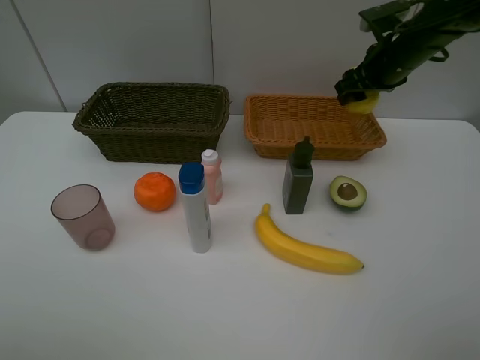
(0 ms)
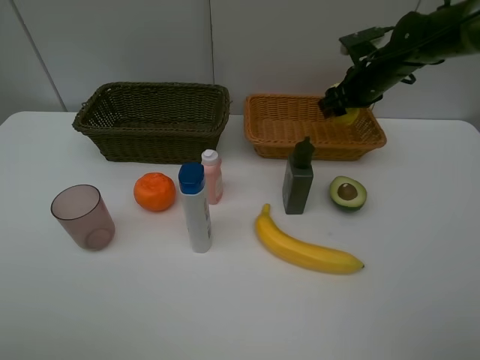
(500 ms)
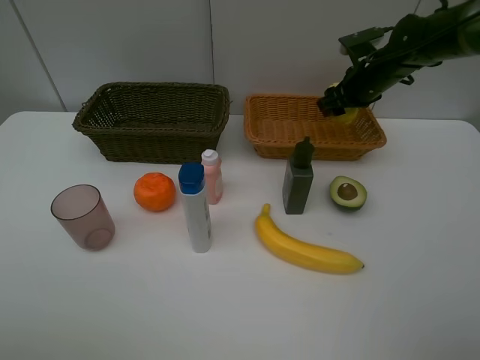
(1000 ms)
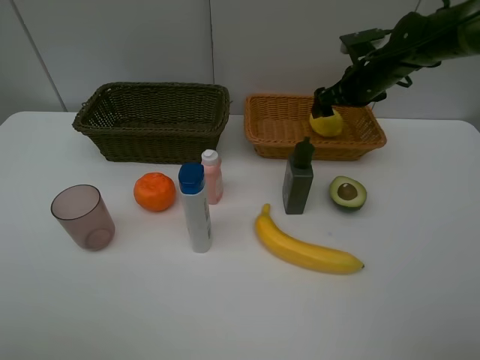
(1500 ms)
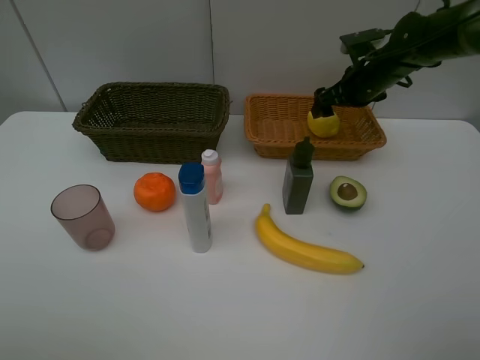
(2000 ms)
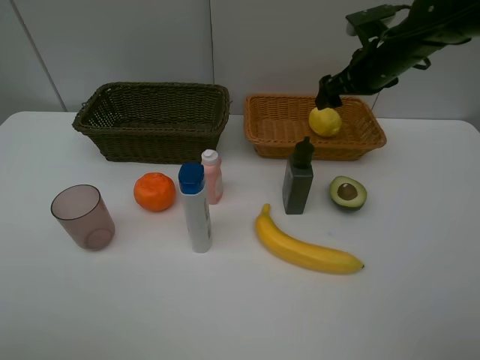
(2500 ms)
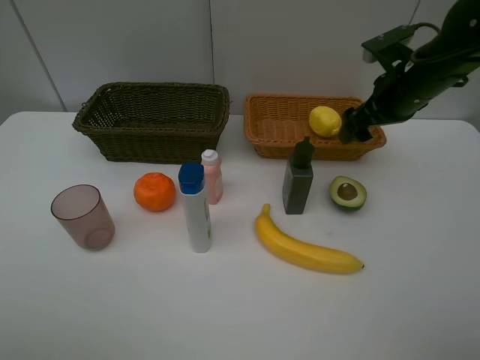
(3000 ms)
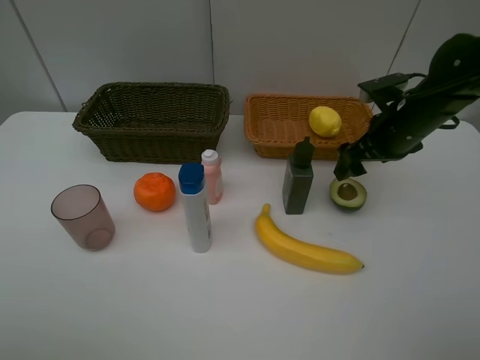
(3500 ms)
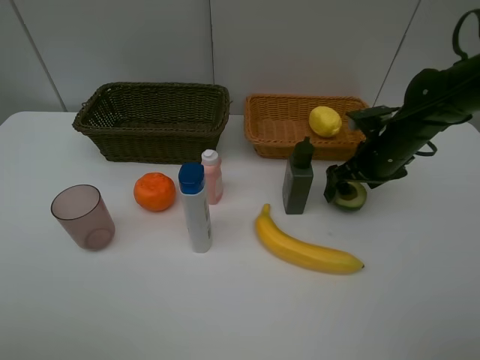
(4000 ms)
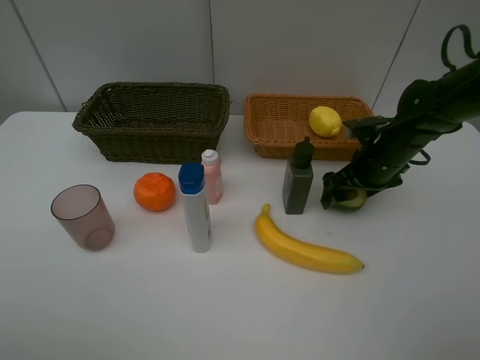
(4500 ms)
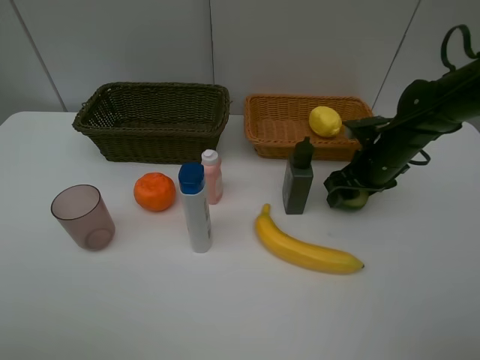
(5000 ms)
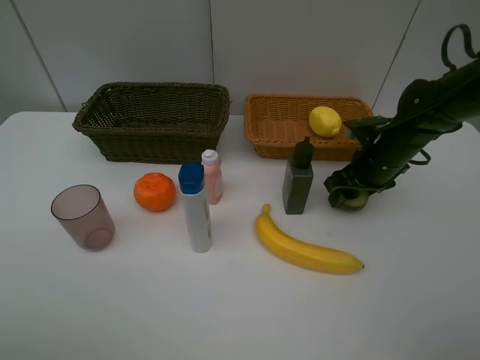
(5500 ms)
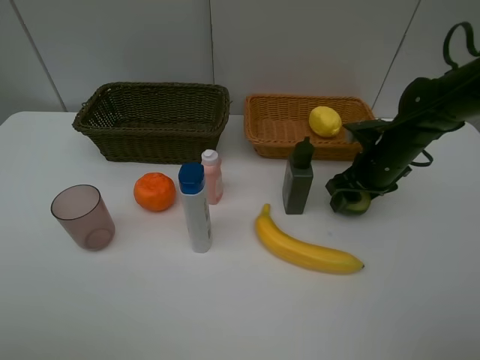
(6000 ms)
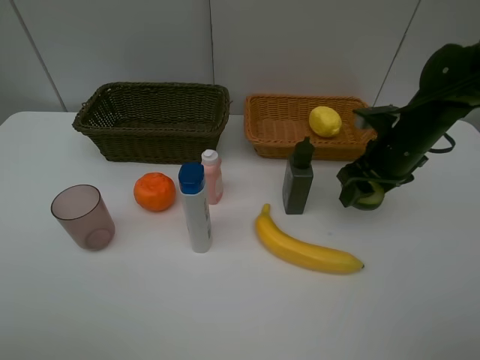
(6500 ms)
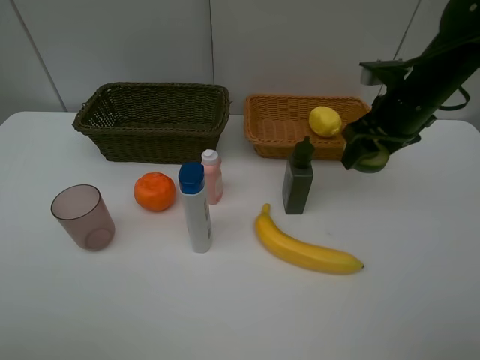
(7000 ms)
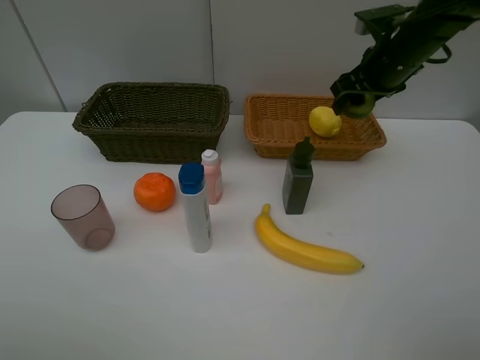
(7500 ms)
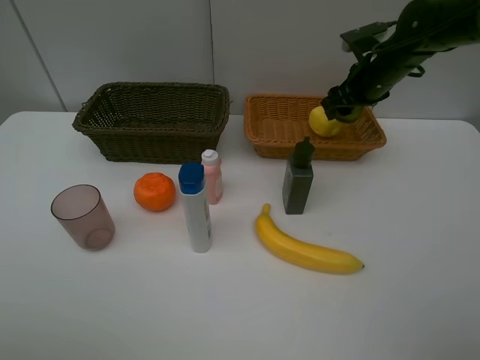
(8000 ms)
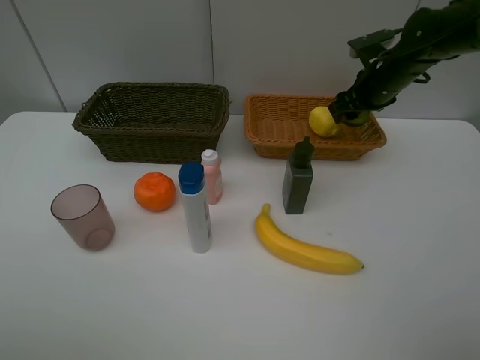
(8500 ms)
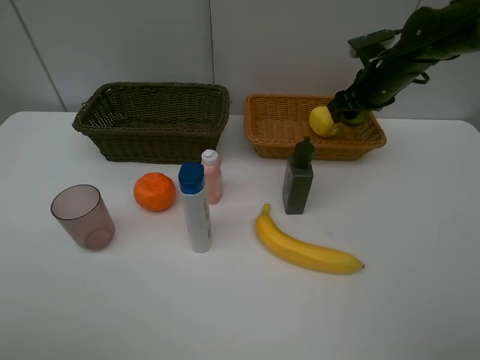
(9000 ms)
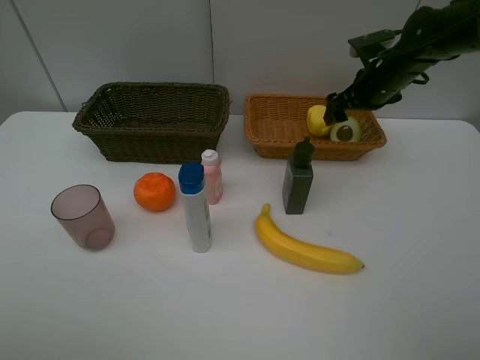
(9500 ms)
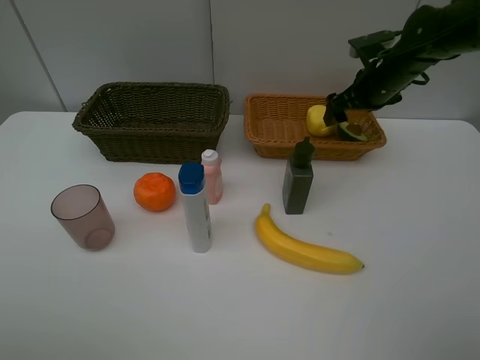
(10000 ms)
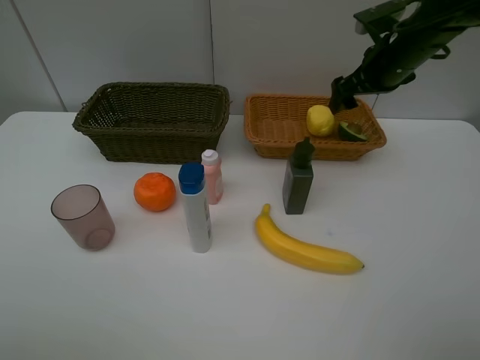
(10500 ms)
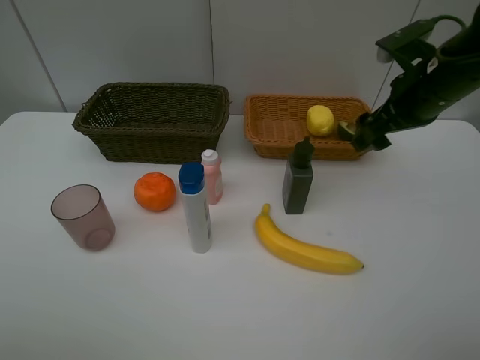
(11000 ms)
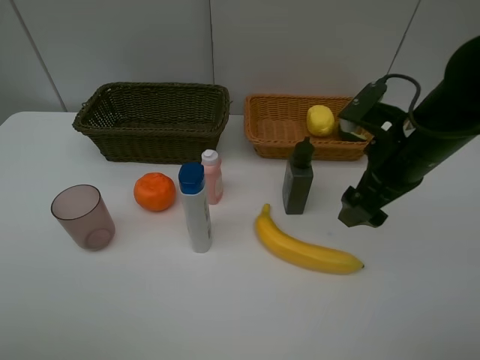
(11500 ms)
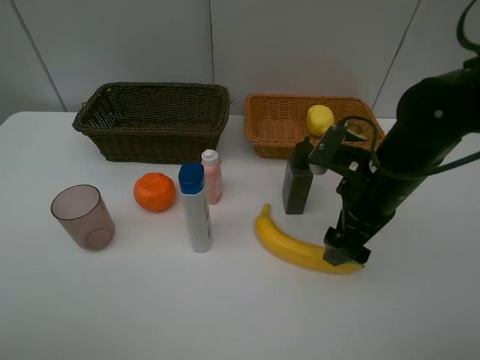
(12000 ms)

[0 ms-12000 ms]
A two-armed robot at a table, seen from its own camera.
Task of the whole recording: Place multiple objects separately in different baskets.
Step, 0 ms to 2000 ms: Place the lemon in the light basket with right gripper.
Step, 2500 ms to 6000 ms: Pick up the avocado with right gripper.
Step, 6500 ms to 9500 ms: Place the avocado in the light basket with right gripper.
0 ms to 2000 ms: The right gripper moves about 5 cm, and opens.
2000 ms to 4000 ms: The right gripper goes about 15 cm backward and downward.
4000 ms to 6000 ms: The right gripper closes up.
6000 ms to 8000 ms: The right gripper travels forward and upward by some 15 cm.
8000 ms to 10000 ms: The right gripper opens up.
10000 ms to 12000 ms: The right gripper shifts about 20 cm backward.

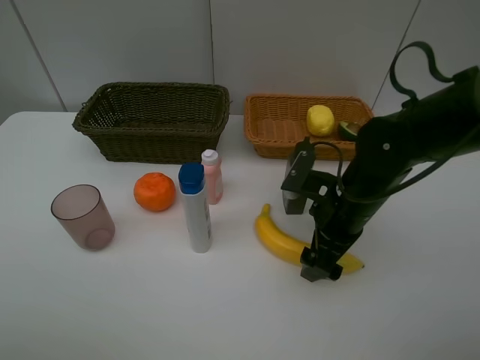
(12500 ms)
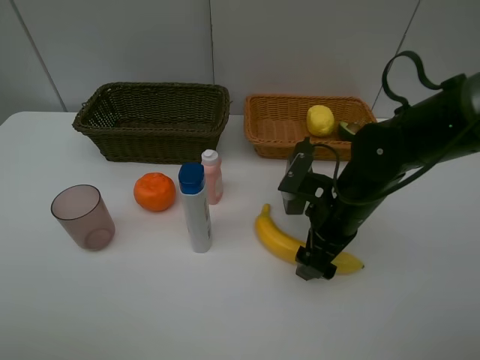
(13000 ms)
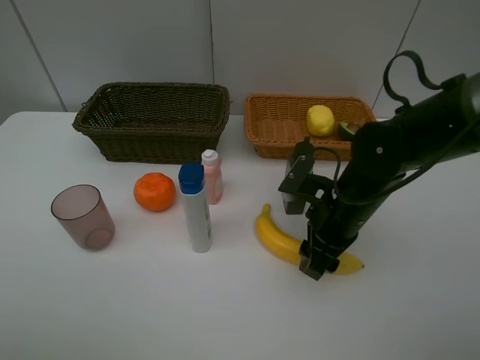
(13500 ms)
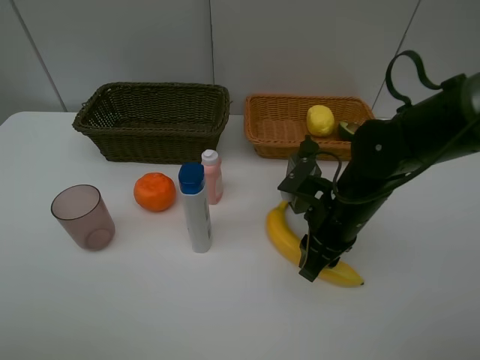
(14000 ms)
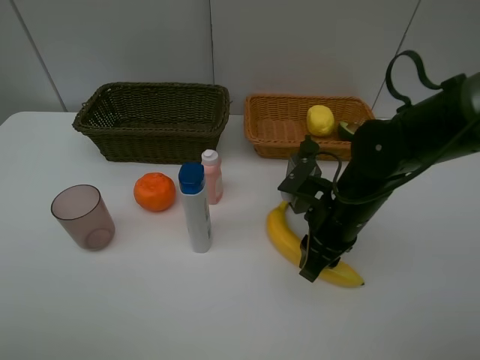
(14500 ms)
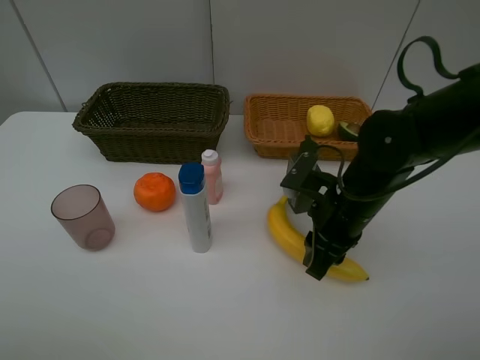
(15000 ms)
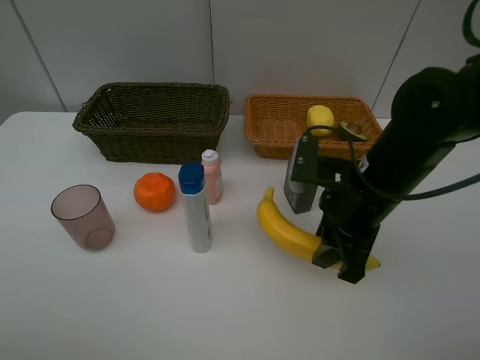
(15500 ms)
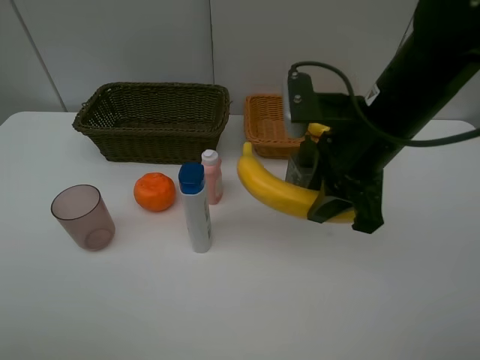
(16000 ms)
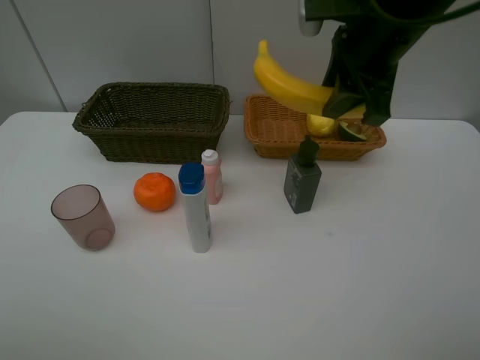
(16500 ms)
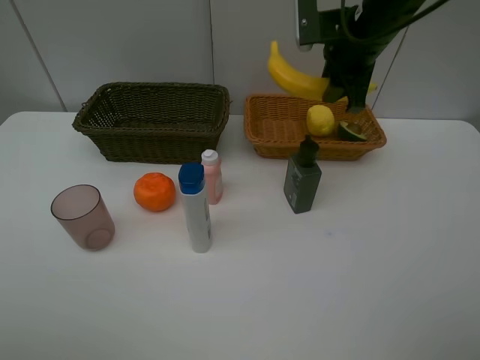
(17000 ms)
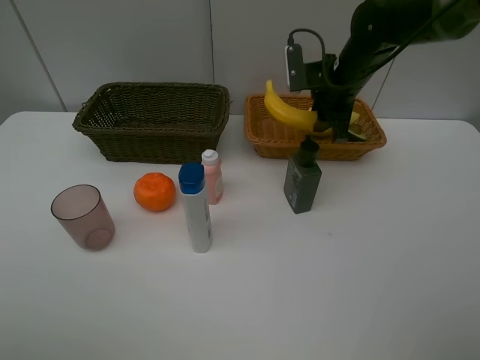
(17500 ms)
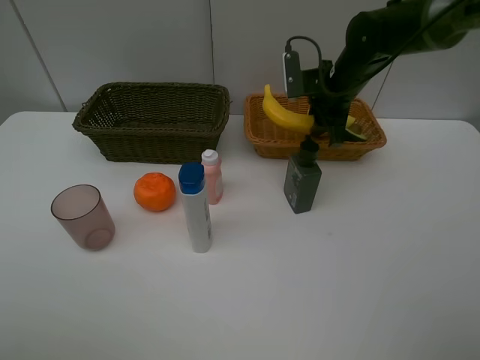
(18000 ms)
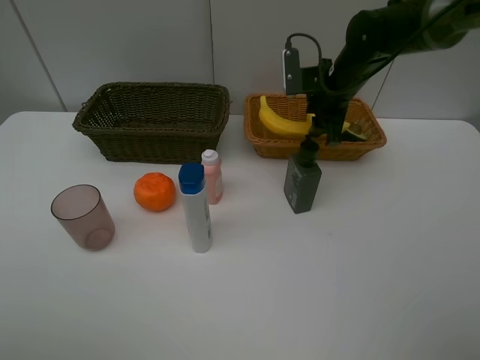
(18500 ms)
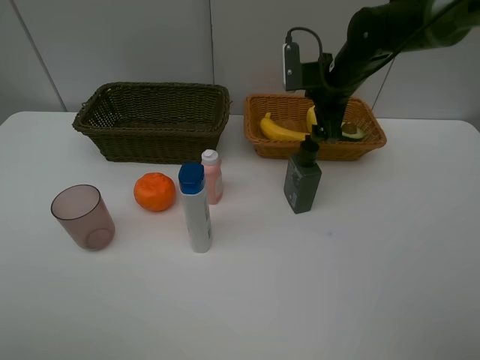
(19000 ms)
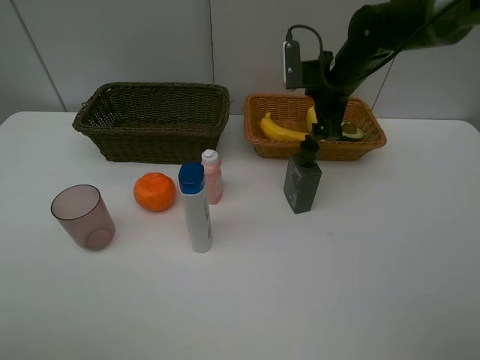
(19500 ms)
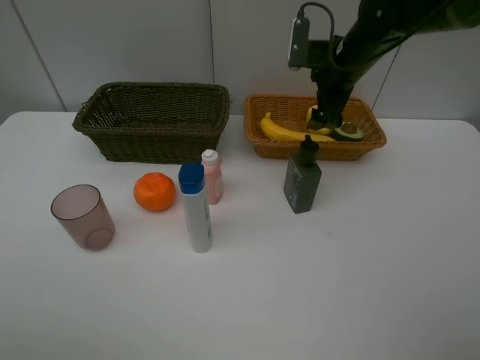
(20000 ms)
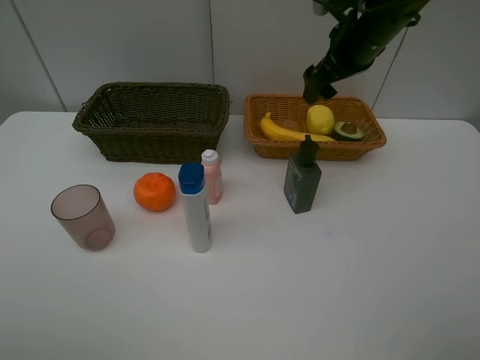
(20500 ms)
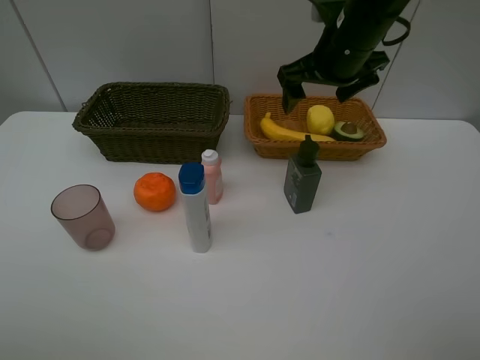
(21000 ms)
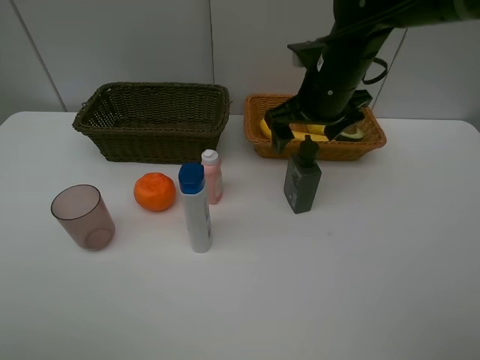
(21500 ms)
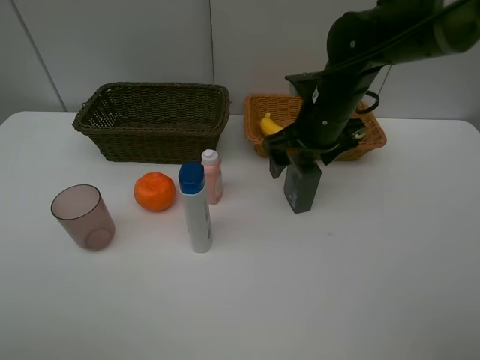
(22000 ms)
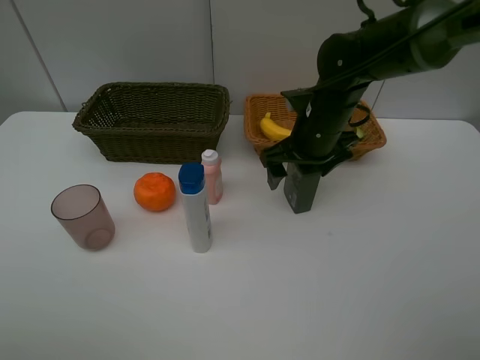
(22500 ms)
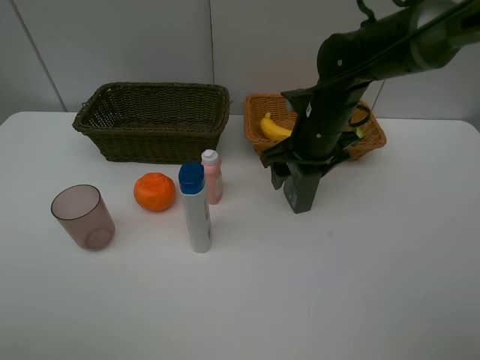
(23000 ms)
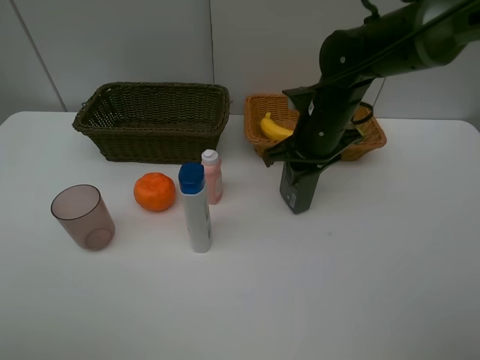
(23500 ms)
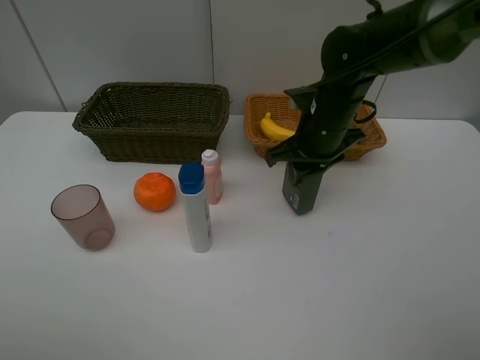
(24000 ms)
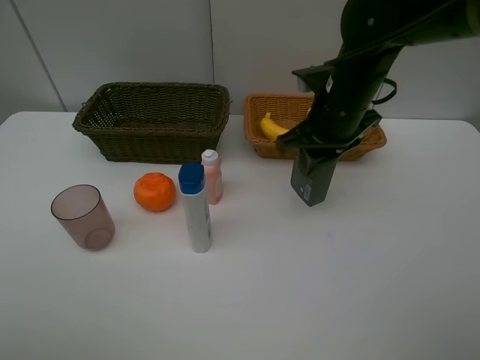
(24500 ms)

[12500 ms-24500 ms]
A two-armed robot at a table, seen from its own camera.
Task of the whole recording: Place multiple objects separately in different baskets.
Step, 12500 ms to 15000 ms: Pick up banana with right gripper.
Step, 15500 ms to 18500 ms: Place the banana in the light basket with right gripper.
Step, 19000 ms to 24000 ms: Pick up the hard facial cleanser with right gripper.
12500 ms to 14500 ms: The right gripper closes.
14500 ms to 16500 ms: The right gripper heads upward, covering about 20 cm.
16500 ms to 18500 ms: The right gripper is displaced downward and forward by roughly 20 cm, and opens its fingers.
18500 ms to 20500 ms: The right gripper travels upward by approximately 10 cm, and opens its fingers.
20500 ms to 22500 ms: The right gripper travels downward, backward and to the left by roughly 15 cm.
22500 ms to 24500 ms: The right gripper heads upward, covering roughly 5 cm, and closes.

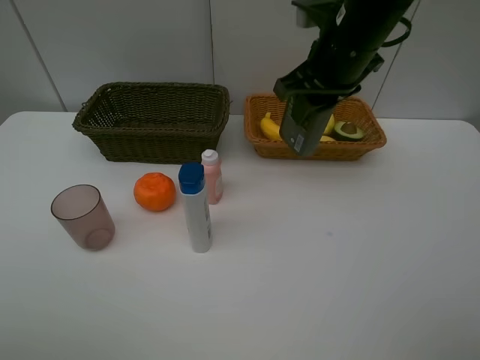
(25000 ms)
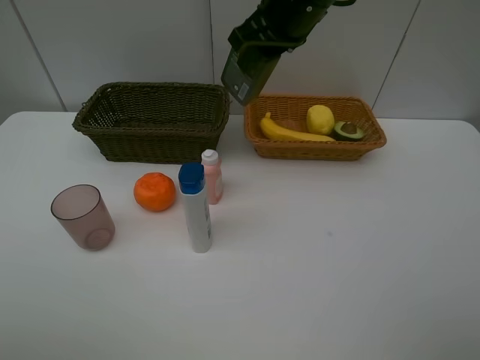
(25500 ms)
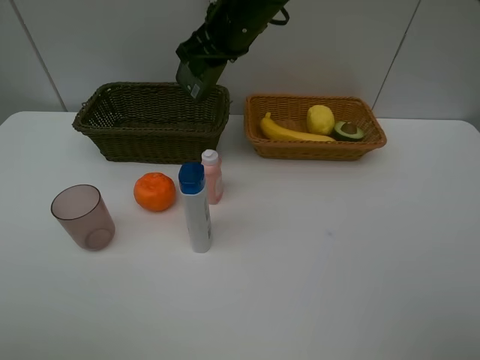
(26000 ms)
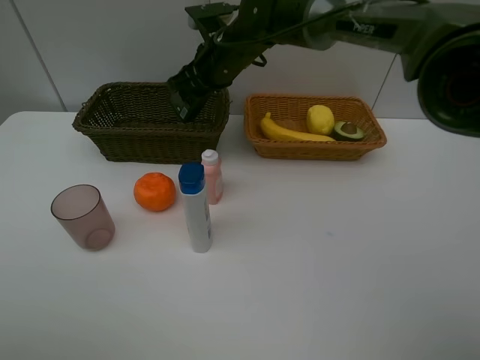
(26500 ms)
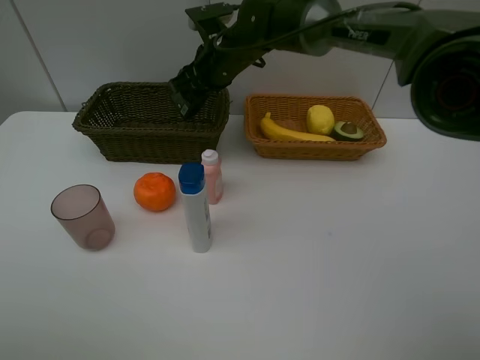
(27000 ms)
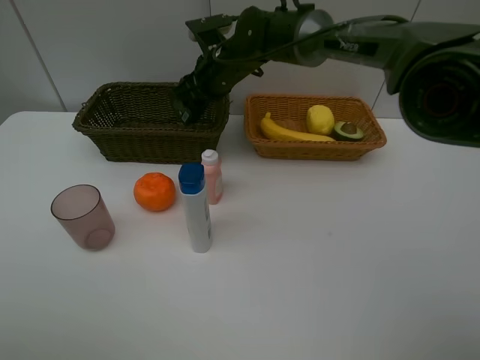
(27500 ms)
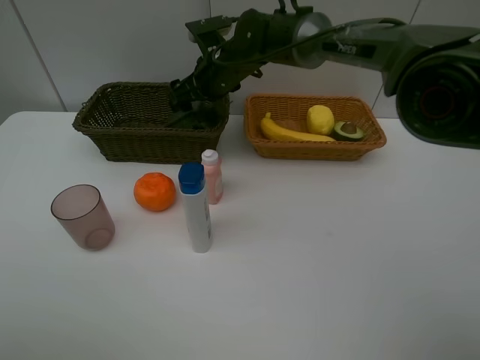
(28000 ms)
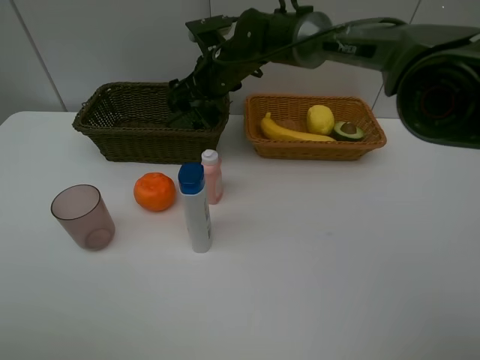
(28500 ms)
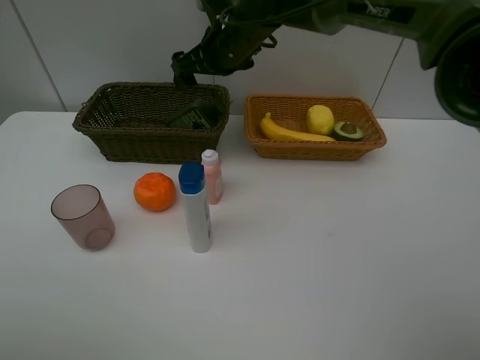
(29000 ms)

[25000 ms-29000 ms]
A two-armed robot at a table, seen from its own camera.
Task of the whole recording: Place multiple objects separately in different baskets.
Step, 25000 ms to 29000 ms: Place the hard facial cleanser in the dark basket with right gripper.
25000 ms to 27000 ms: The right gripper travels to the left, forward and downward by roughly 20 cm.
27000 ms to 29000 ms: The right gripper opens.
